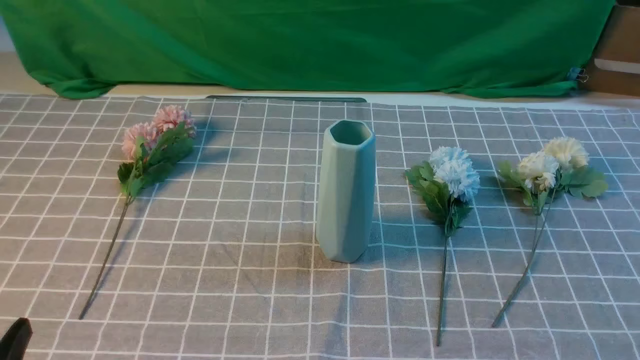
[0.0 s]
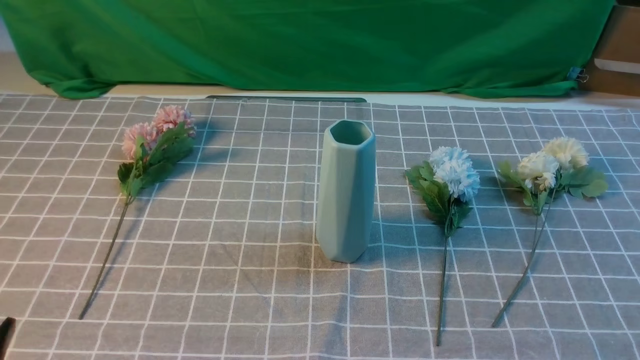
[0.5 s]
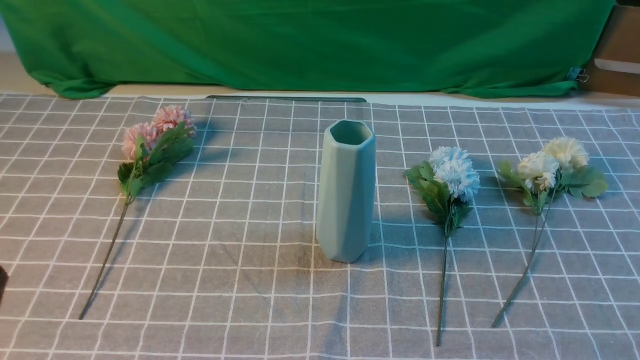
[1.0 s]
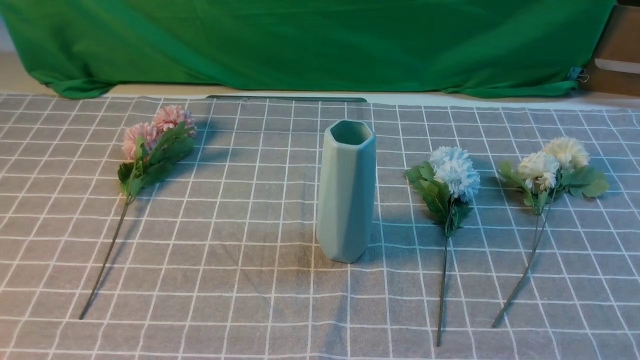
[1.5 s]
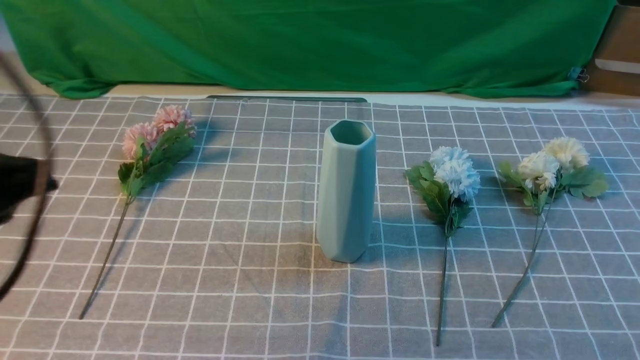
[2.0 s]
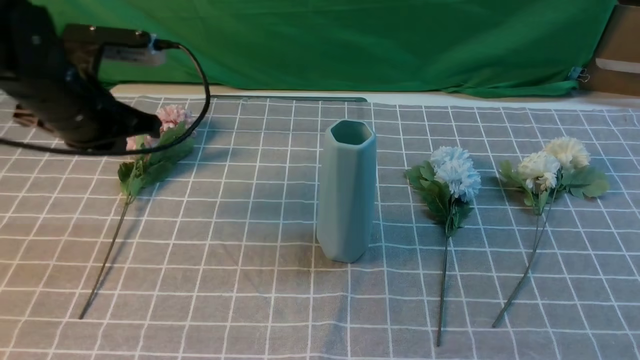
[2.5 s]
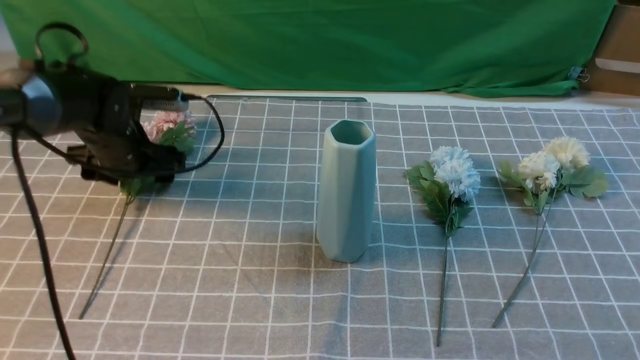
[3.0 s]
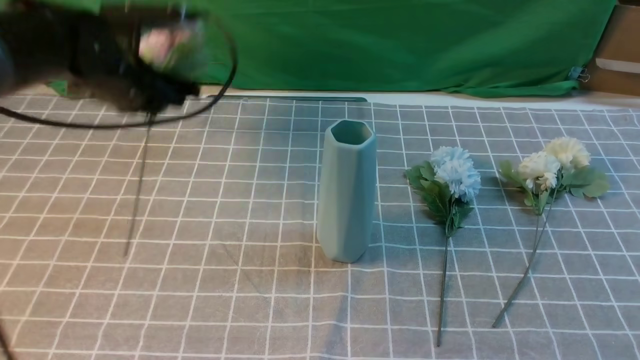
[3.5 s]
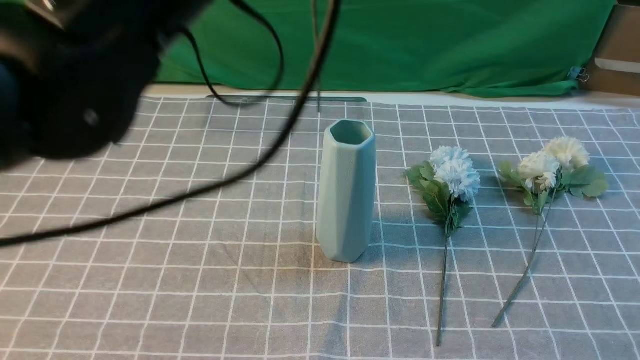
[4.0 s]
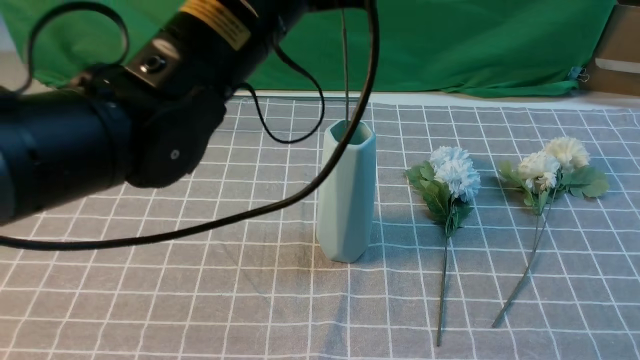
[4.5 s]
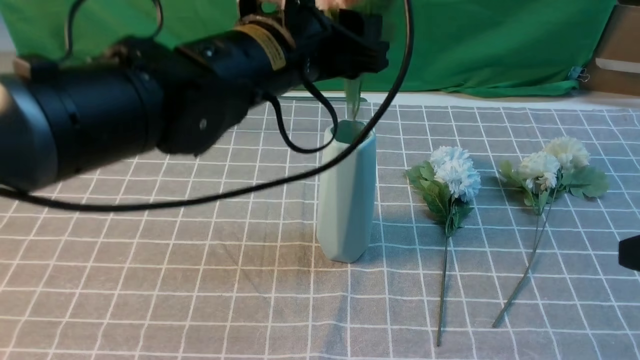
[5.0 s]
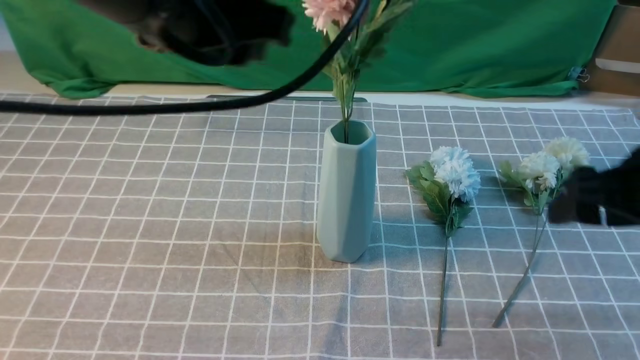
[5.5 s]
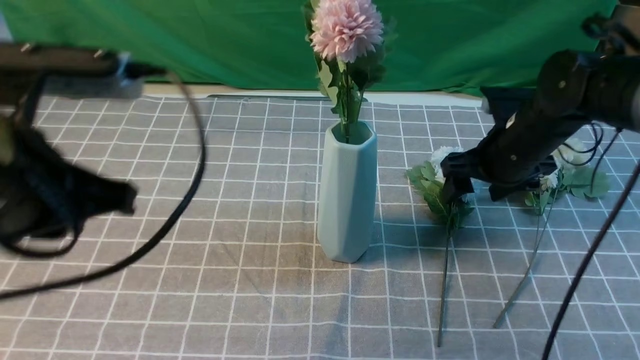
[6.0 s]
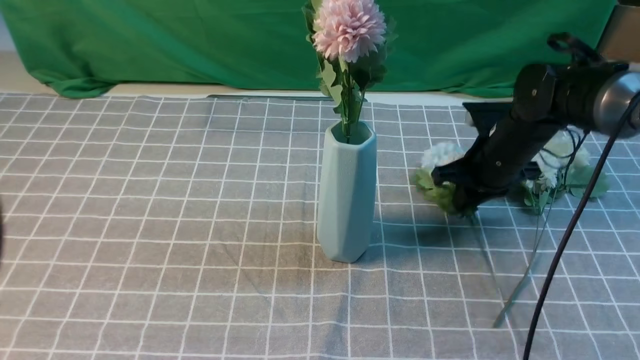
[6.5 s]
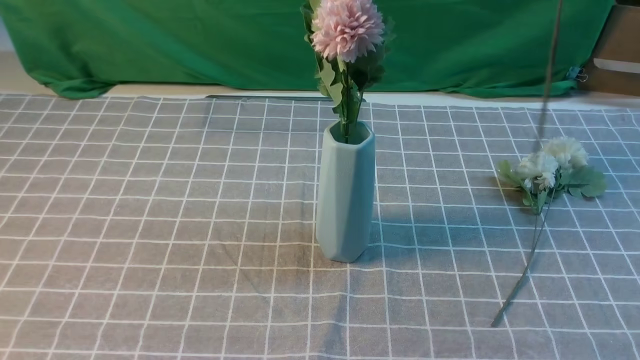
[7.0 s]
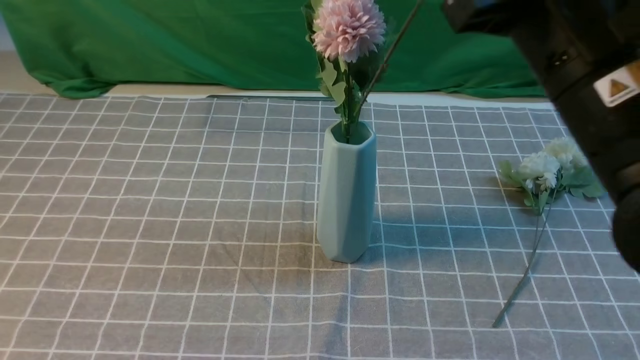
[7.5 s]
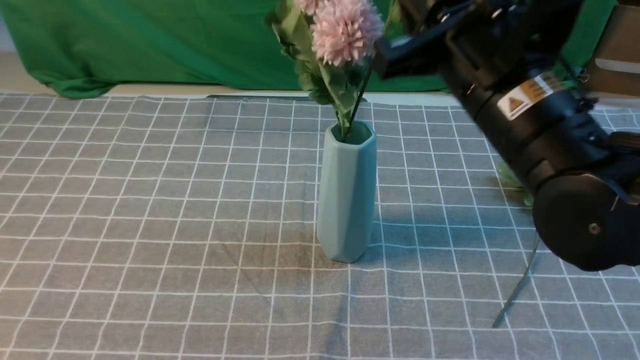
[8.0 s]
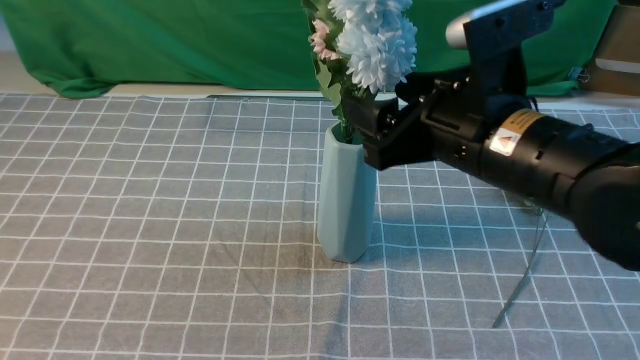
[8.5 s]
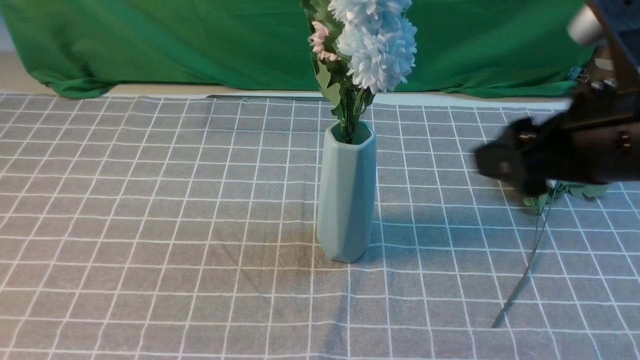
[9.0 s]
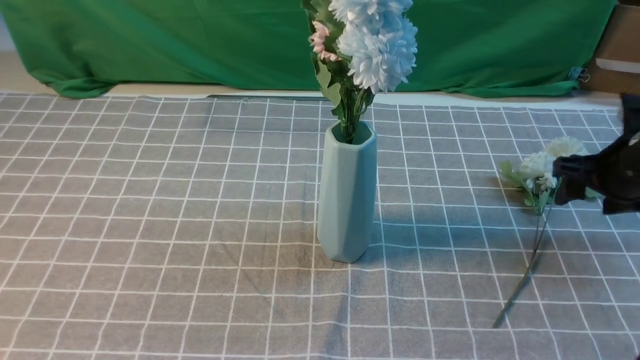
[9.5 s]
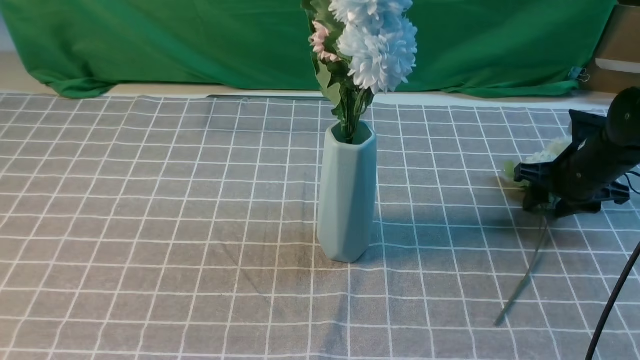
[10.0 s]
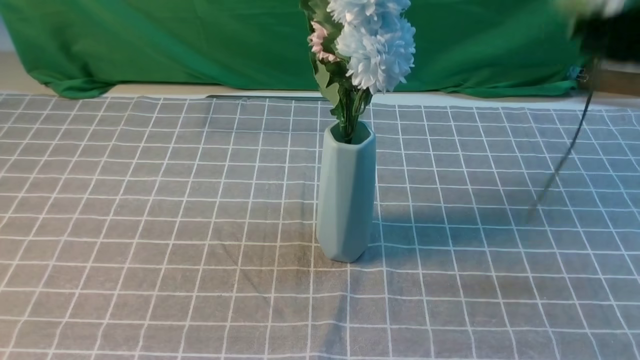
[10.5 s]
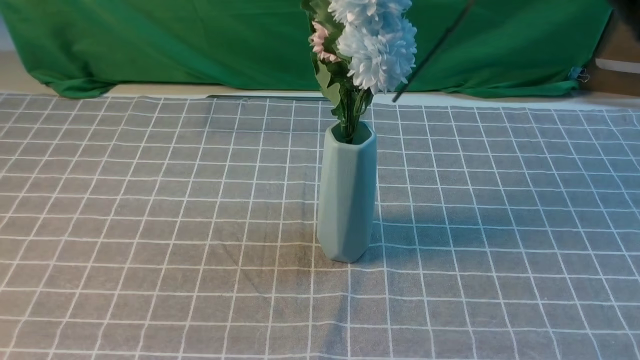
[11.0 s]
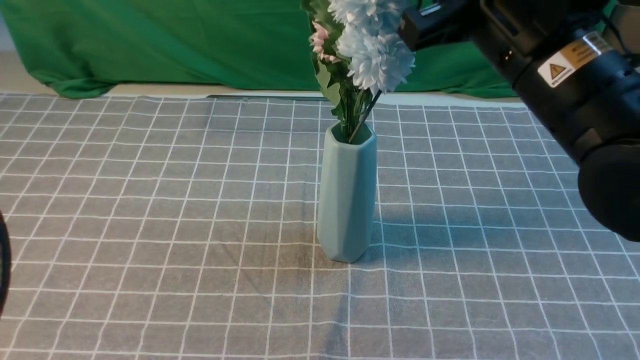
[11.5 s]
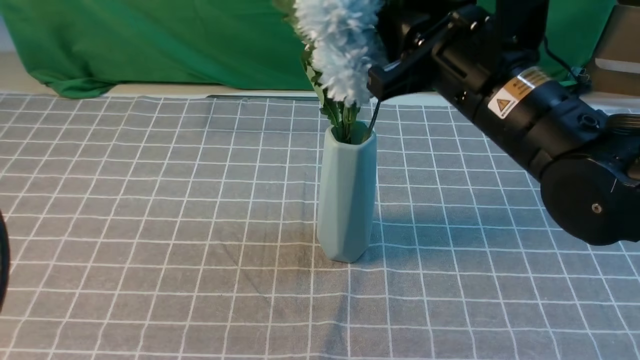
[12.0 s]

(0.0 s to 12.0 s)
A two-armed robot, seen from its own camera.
Task of the whole recording: insert the flowers into the vase on the table with the grey tablecloth.
Step, 0.0 s - 3.0 s: use the left arm to grab a bunch of fresh flowers.
Step, 3.5 s - 5.0 s: use the left arm to insert the flowers into the vase.
Step, 5.5 s - 6.0 s: use the right arm to grab a bunch of fresh flowers.
Step, 6.5 s - 8.5 s: use the right arm to insert the flowers into the vase.
Step, 9.0 s - 10.0 s: use the right arm to grab a bunch of fresh flowers.
0.0 s - 2.0 s: The left gripper is displaced upward and forward by approximately 20 cm, and closes its fingers.
2.0 s - 4.0 s: The right gripper shifts some 5 cm forward. Meanwhile the left gripper shifts roughly 20 cm to the right and forward, reaches roughly 15 cm downward, then returns, and opens, then closes again.
4.0 s - 6.0 s: The right gripper goes about 30 cm forward and downward, and opens. The left gripper heads to the left, backward and downward, covering approximately 15 cm, and opens, then closes again.
6.0 s - 8.0 s: The right gripper heads upward, backward and to the left, covering roughly 20 cm, and closes. Meanwhile the left gripper shifts approximately 10 cm backward and to the left.
8.0 s - 10.0 s: The right gripper heads to the right, downward and forward, covering some 30 cm, and opens, then closes again.
10.0 s - 12.0 s: The right gripper heads to the left, upward and backward, covering roughly 30 cm, and closes and opens again.

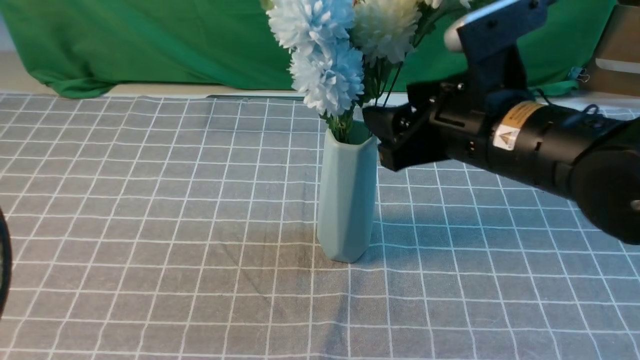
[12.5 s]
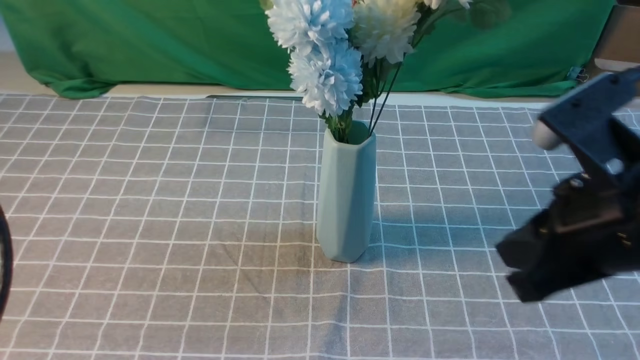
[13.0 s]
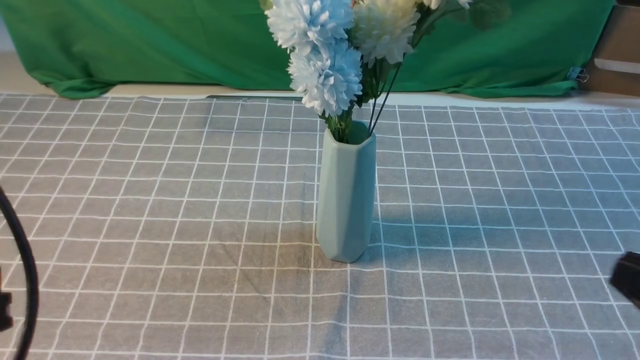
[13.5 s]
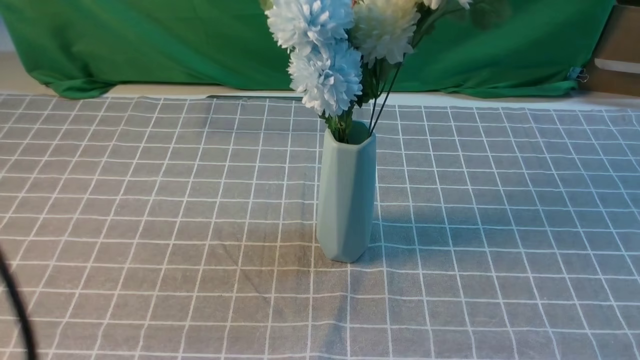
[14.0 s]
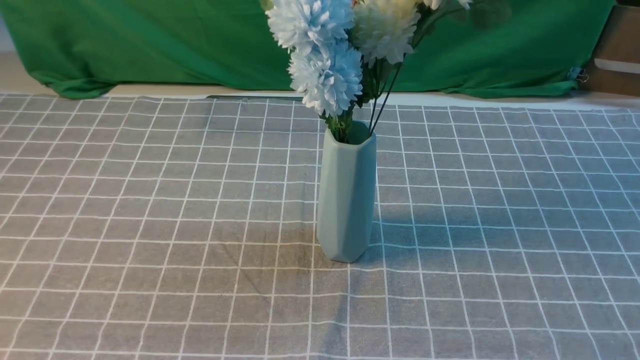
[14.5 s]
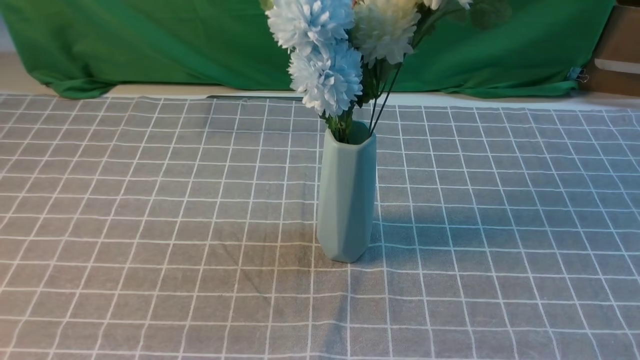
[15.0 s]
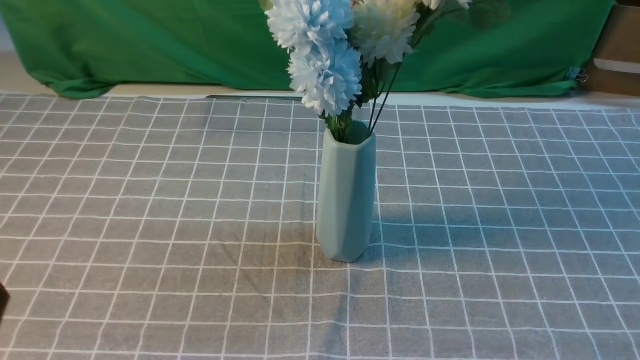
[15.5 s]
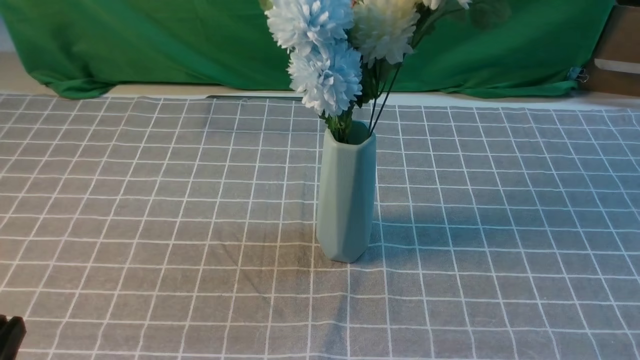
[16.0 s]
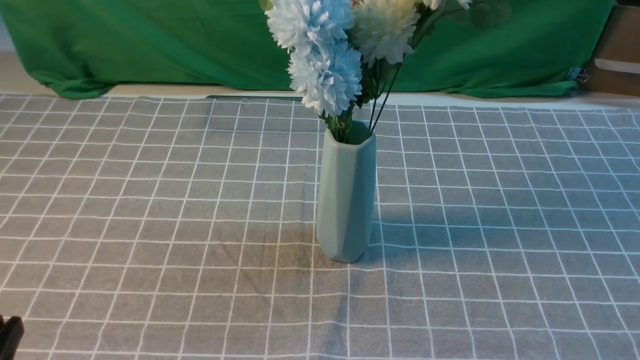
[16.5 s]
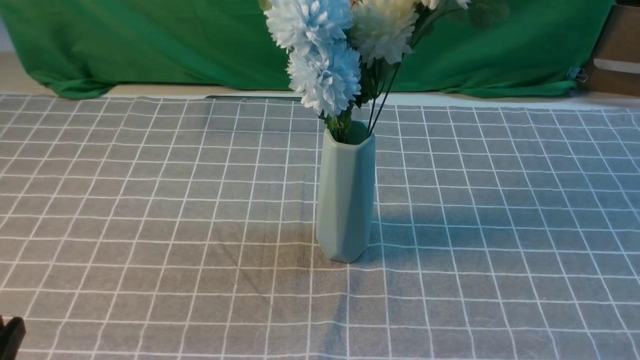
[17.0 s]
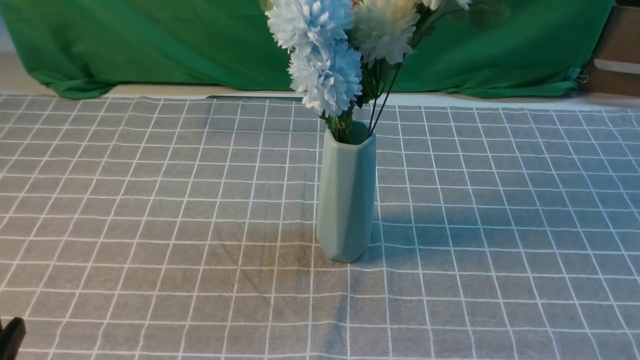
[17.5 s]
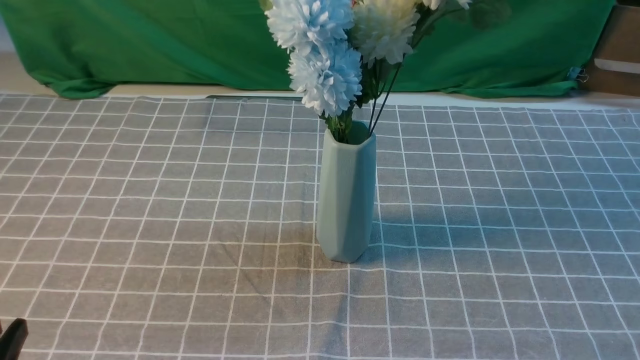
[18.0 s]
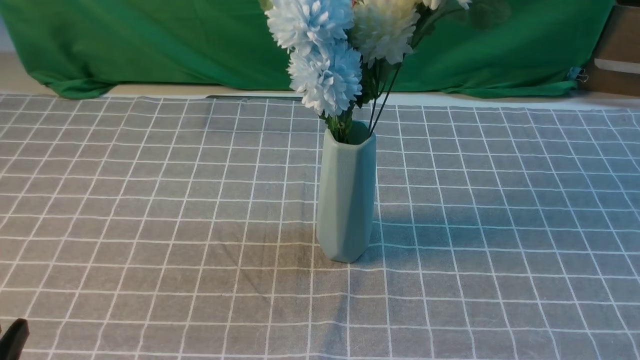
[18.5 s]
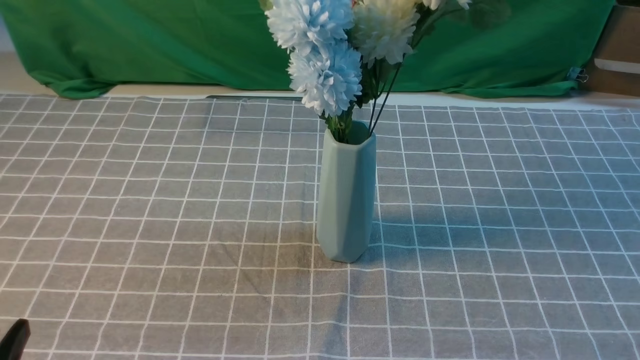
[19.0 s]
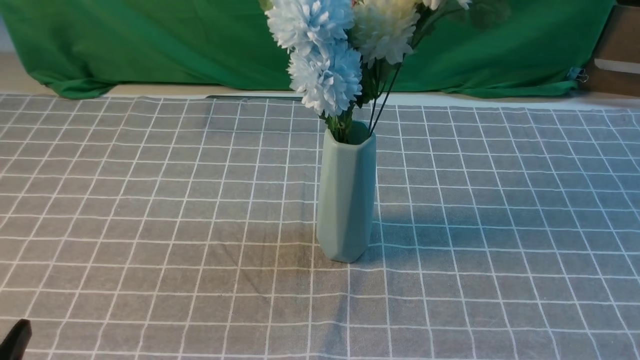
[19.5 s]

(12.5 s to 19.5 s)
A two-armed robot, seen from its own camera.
Task of the whole recording: insert the flowers into the vase on the table with the grey tablecloth.
12.5 s - 14.5 s: The left gripper moves backward, roughly 10 cm, while the right gripper travels backward and to the right by some 30 cm, and closes its fingers.
17.5 s - 19.5 s: Both grippers stay about where they are.
